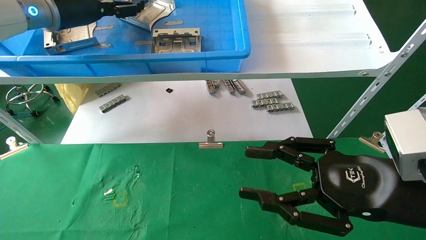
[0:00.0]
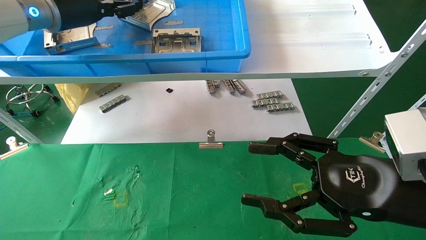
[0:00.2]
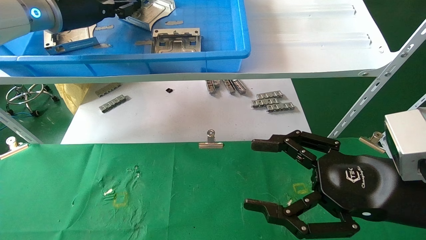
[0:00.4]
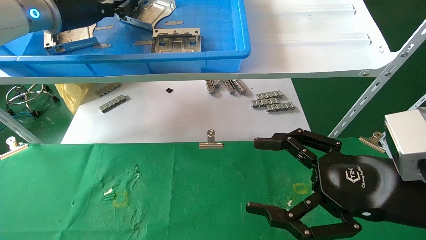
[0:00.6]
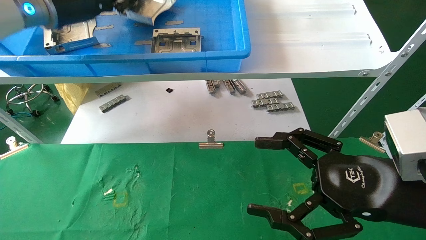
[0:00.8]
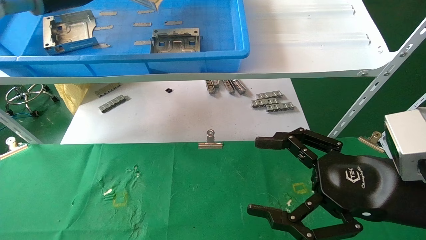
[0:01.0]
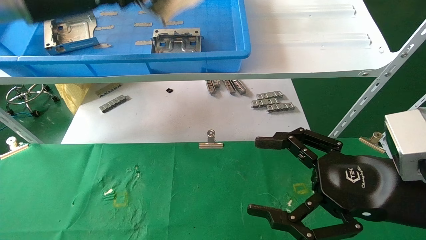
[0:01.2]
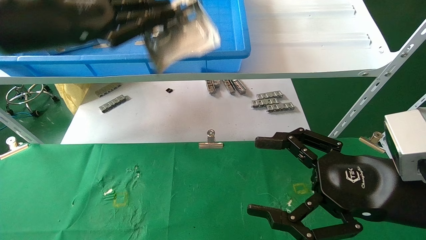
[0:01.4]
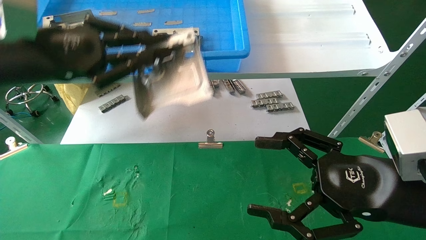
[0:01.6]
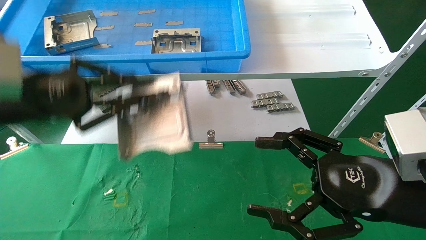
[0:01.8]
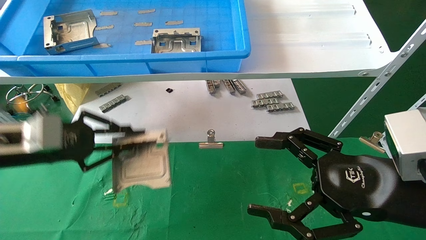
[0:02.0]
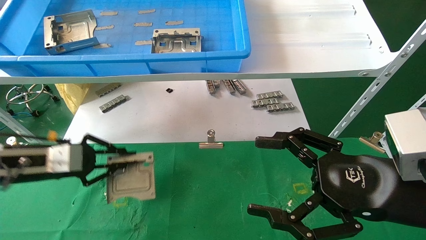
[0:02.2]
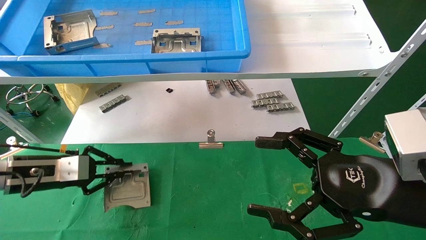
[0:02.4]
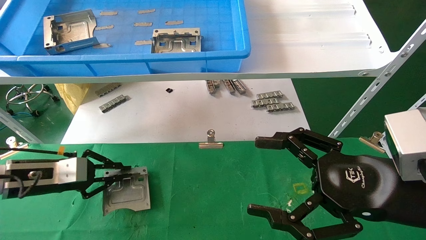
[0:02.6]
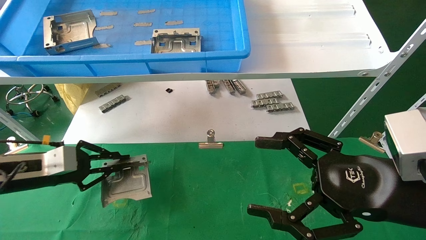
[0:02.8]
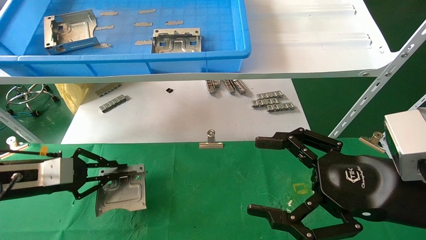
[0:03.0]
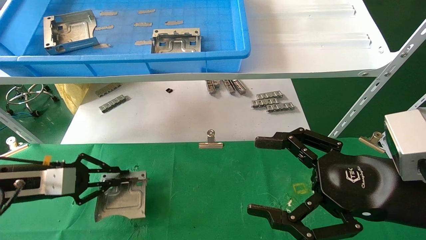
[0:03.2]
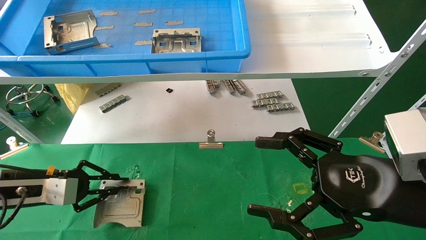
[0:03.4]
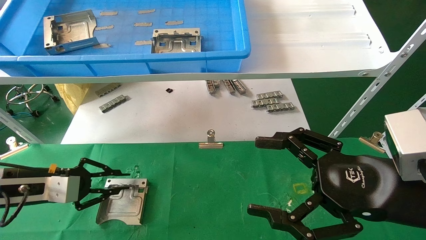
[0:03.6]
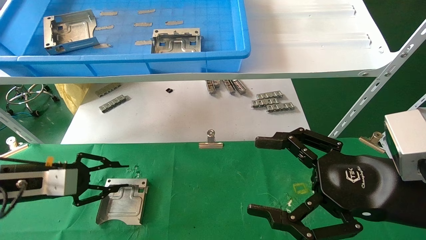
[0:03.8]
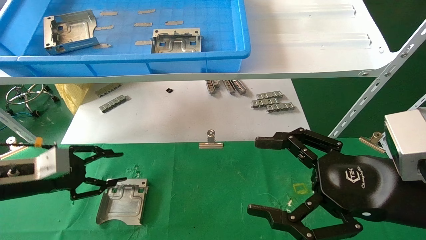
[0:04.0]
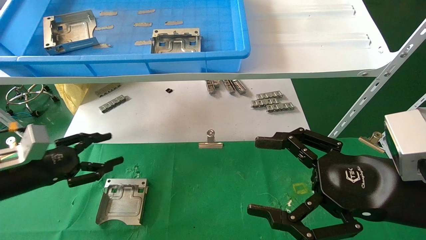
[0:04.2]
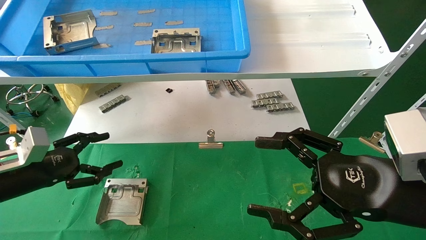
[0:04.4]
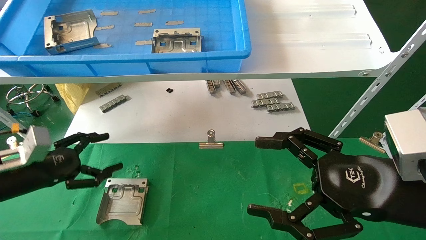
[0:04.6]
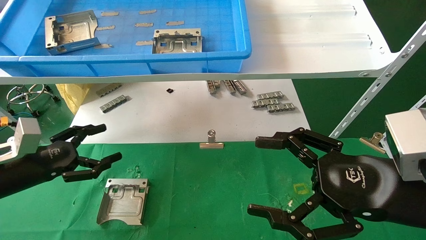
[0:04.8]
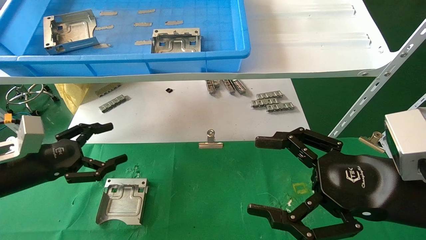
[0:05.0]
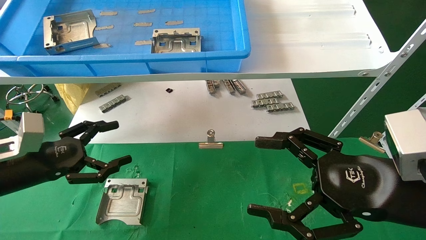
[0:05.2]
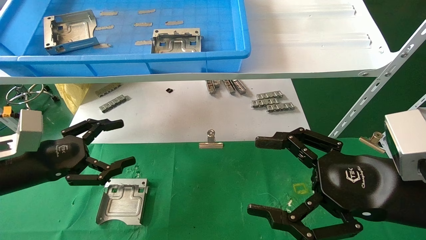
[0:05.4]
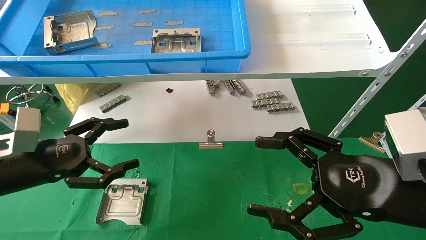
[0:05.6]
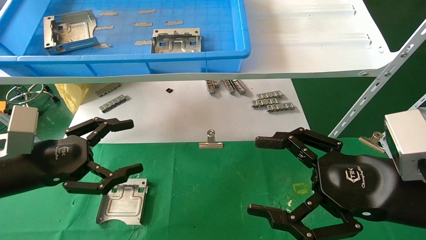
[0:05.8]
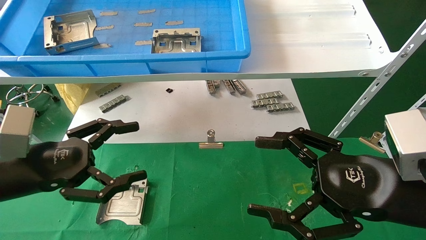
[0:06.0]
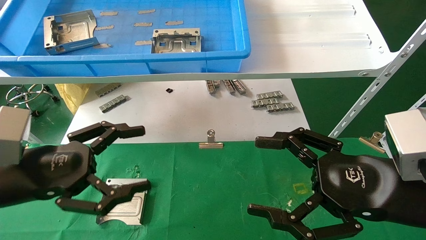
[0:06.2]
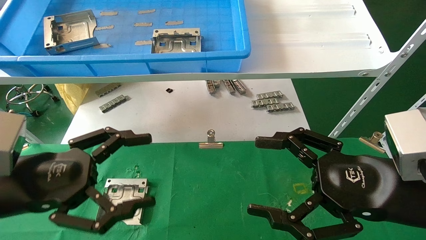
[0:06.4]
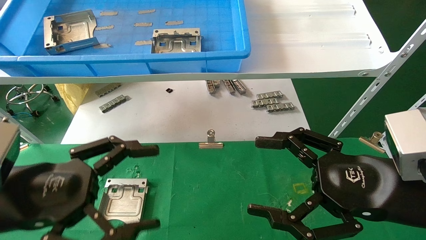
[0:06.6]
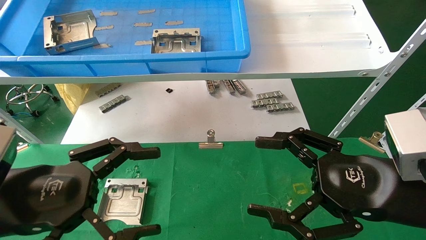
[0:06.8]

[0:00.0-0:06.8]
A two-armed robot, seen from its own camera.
Task of the whole recording: use the mechanical arm to pick up the parts and place them on the table.
Step, 0:01.8 to 0:04.2: Place the hard drive bracket into the box.
0:00.0 to 0:01.4: The left gripper shifts about 10 cm backward, and closes up. The right gripper opens up.
0:01.4 to 0:02.8: The left gripper heads downward and to the left, covering roughly 25 cm.
0:02.8 to 0:04.0: The grippers stay close to where they were, moving slightly.
0:04.0 to 0:05.4: The left gripper shifts by about 5 cm, and opens its fingers.
0:05.4 to 0:06.8: The left gripper travels backward and to the right by some 15 cm.
